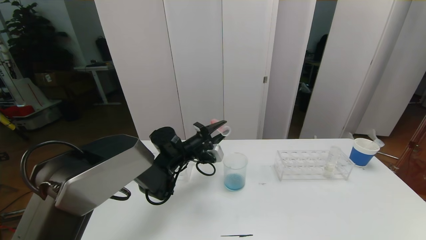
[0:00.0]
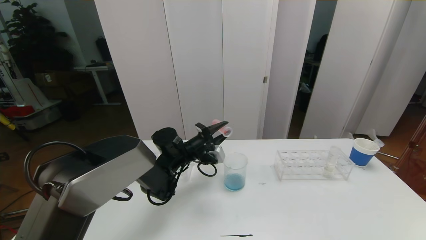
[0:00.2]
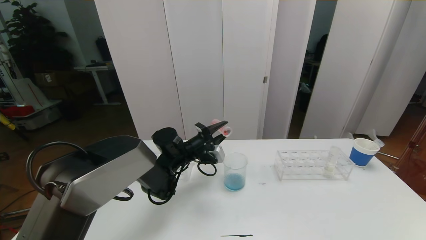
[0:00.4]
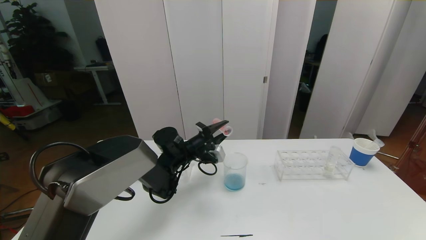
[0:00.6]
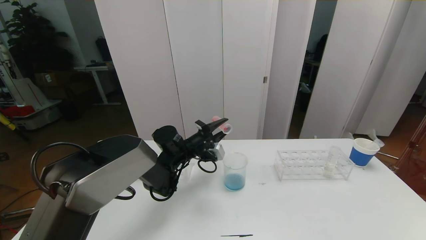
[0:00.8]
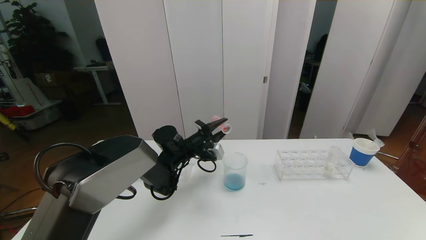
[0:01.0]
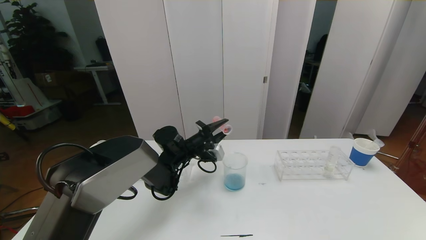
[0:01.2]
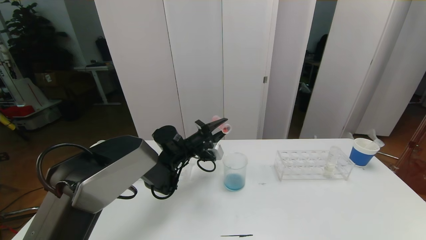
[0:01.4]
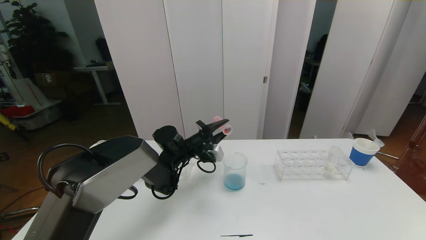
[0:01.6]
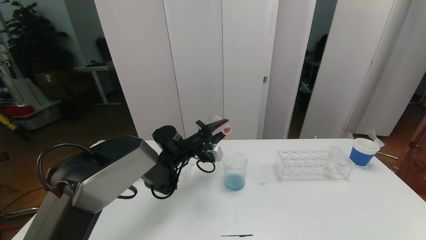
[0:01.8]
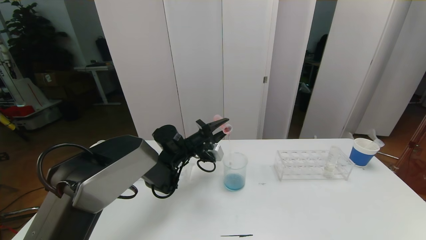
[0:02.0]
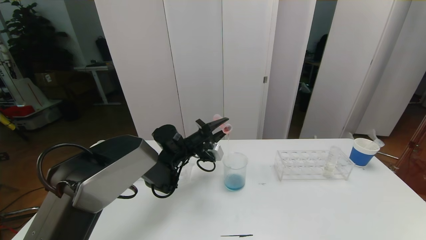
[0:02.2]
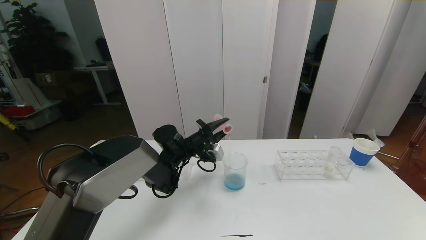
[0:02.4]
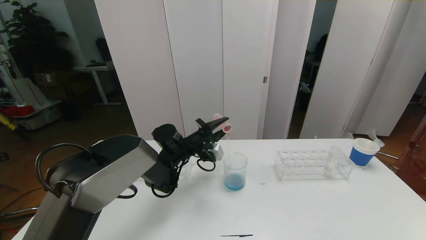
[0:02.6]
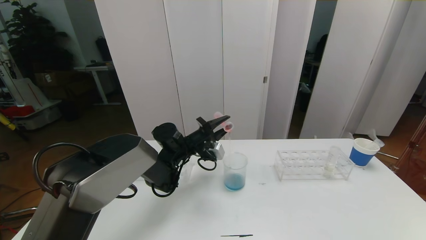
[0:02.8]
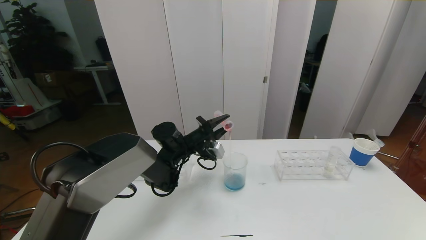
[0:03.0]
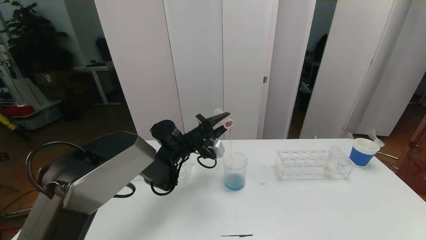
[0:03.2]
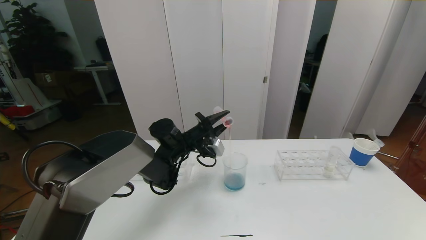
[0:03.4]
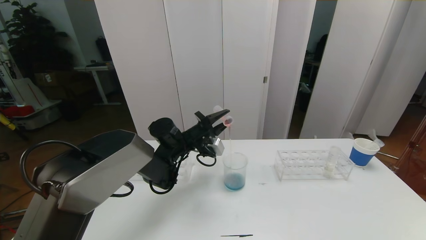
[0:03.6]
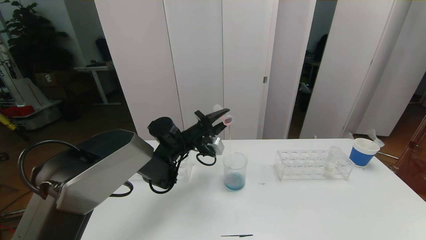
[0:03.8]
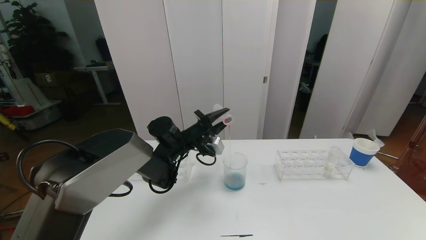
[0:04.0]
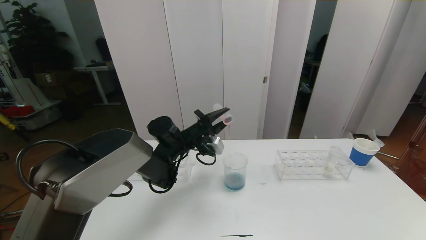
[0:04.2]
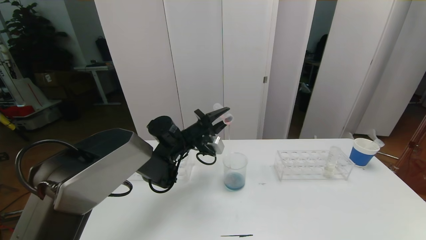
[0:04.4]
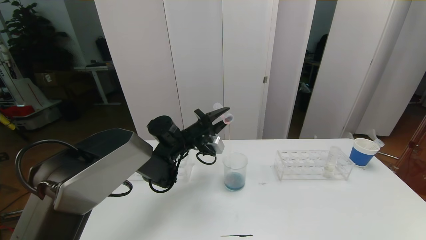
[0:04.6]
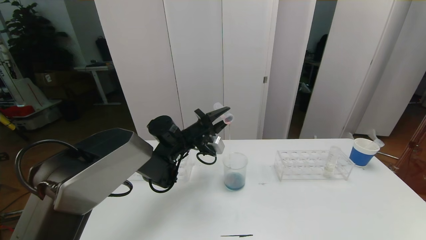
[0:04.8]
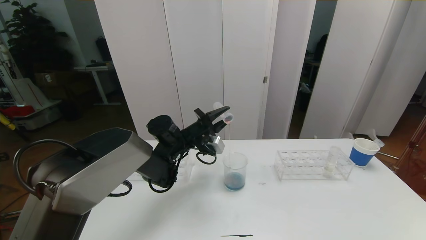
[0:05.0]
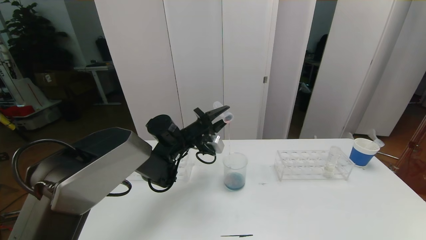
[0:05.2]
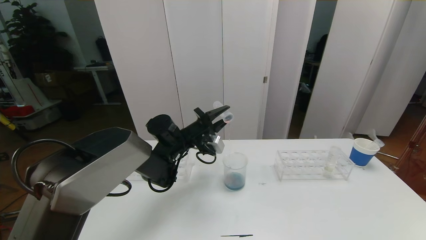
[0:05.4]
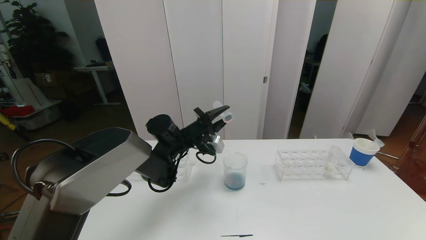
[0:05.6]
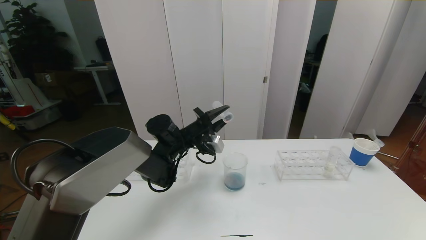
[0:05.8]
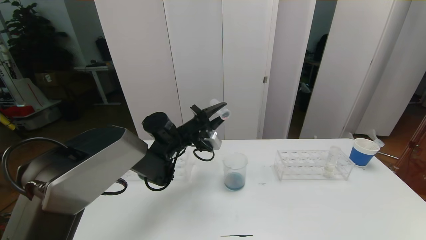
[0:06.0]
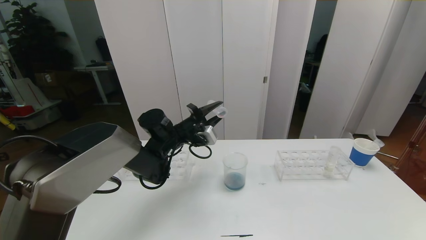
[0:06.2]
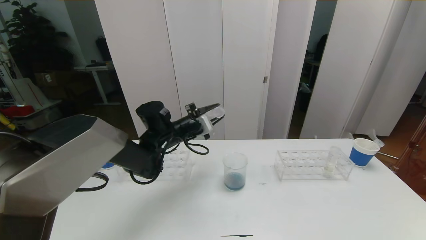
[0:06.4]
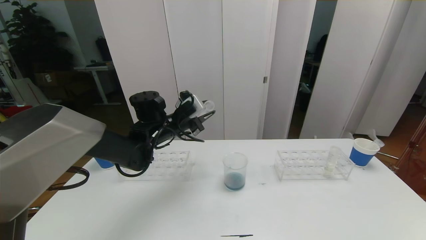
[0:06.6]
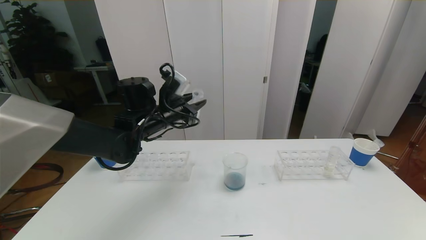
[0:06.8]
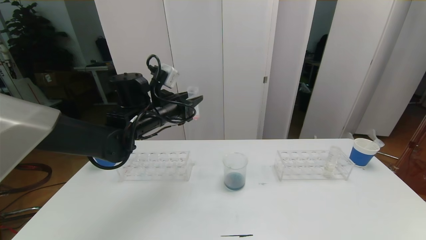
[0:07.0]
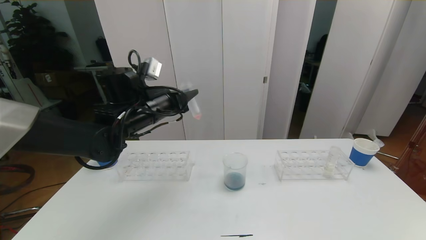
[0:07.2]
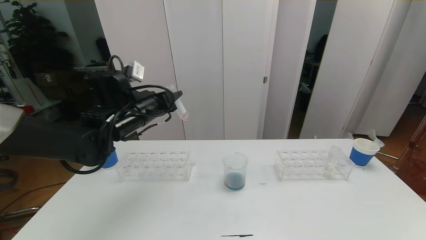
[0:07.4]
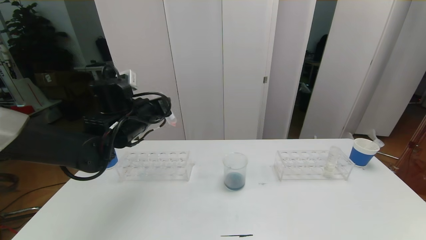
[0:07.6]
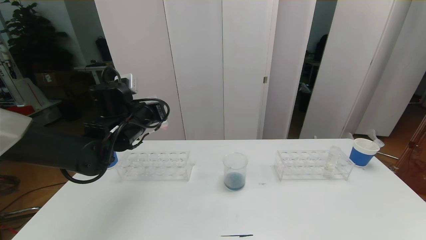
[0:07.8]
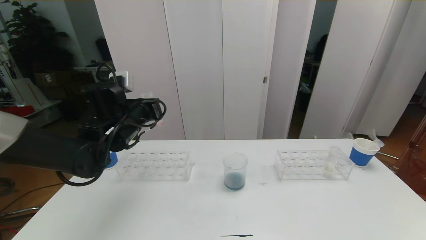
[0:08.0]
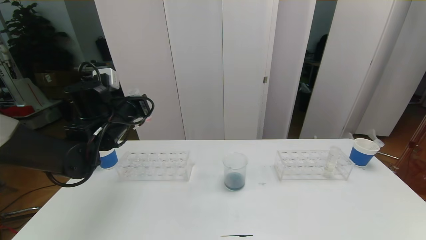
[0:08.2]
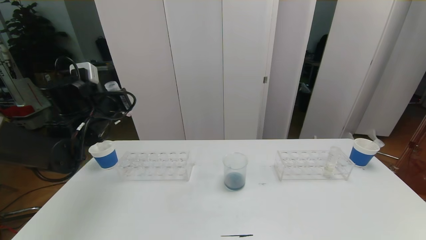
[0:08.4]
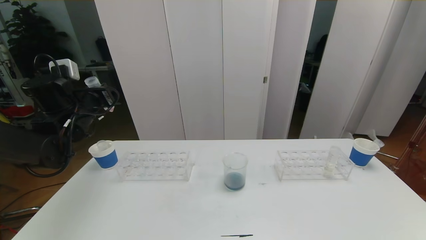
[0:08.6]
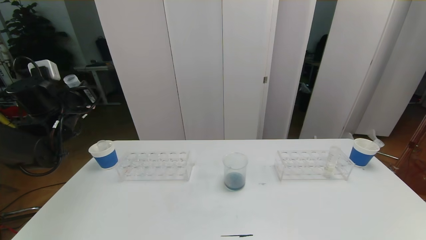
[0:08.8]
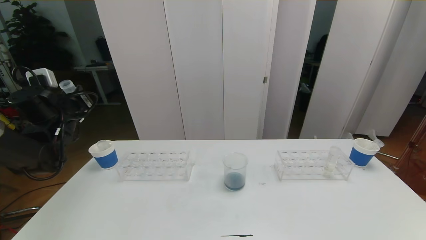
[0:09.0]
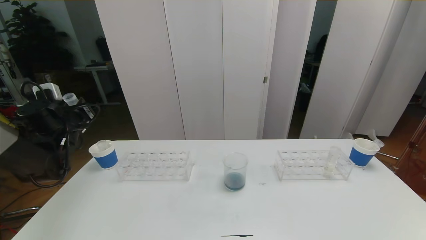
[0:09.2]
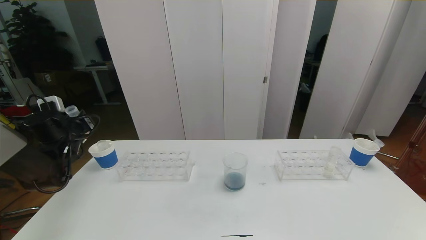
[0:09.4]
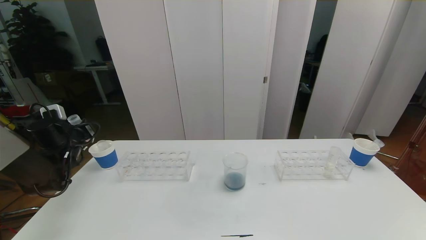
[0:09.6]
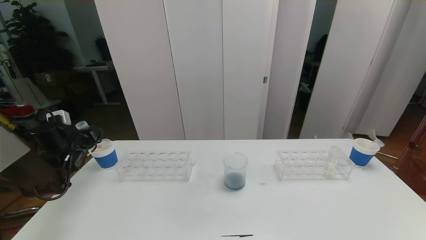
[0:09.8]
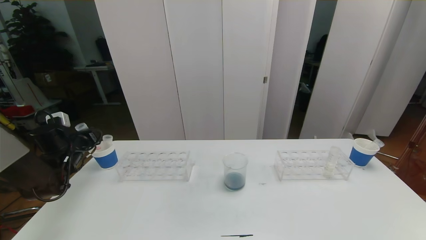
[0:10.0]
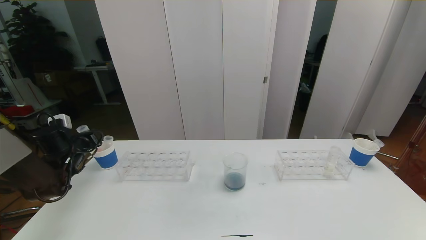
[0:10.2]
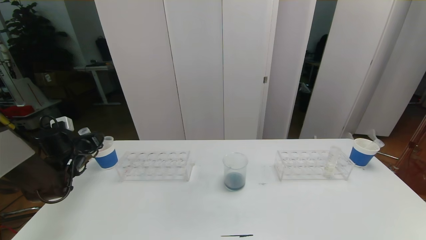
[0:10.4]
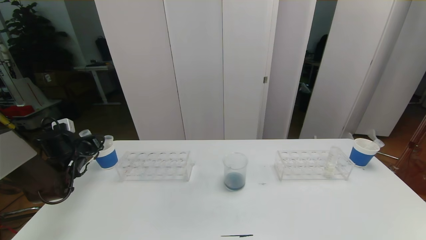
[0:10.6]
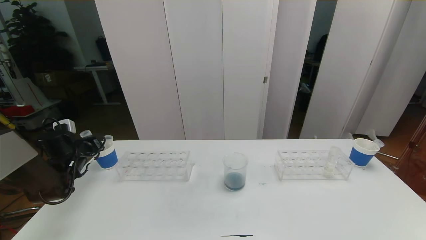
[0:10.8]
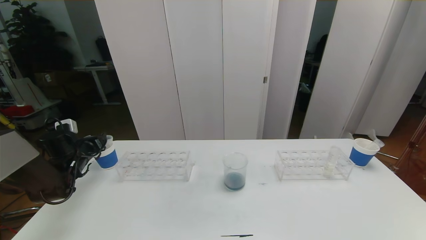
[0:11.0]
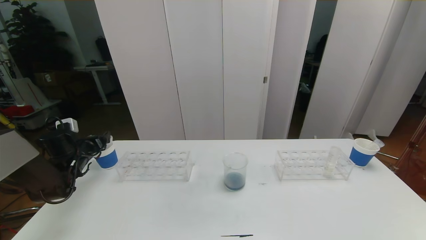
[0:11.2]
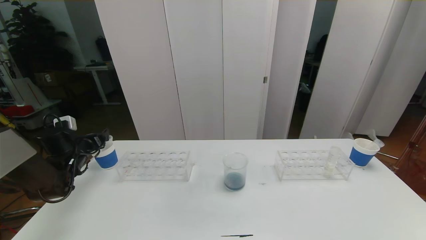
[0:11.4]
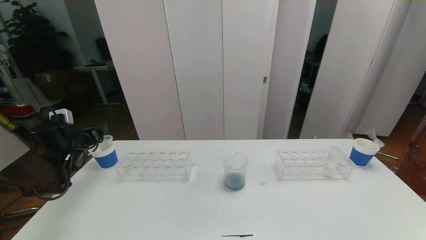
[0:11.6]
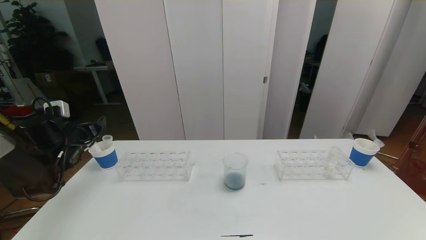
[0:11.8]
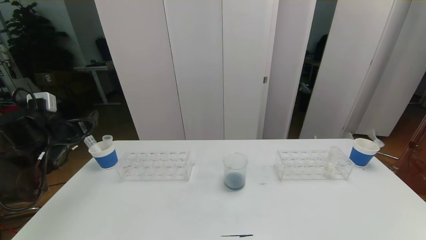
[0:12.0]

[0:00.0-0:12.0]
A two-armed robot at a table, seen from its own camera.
Task of the whole recording: pick up the test tube with red pigment the test tube with blue pigment and the test tube with white pigment by grippers and pour them into the beaker.
0:00.0 to 0:01.6: The grippers stay close to where they were, moving slightly.
0:01.6 to 0:03.0: The two grippers keep their place.
0:03.0 to 0:04.4: The grippers move only a little.
0:04.4 to 0:06.0: The two grippers keep their place.
0:06.0 to 0:07.6: The left gripper shifts approximately 10 cm to the left, upward and backward.
0:07.6 to 0:09.0: The left gripper shifts roughly 20 cm to the left.
0:09.0 to 0:10.4: The left gripper moves downward, roughly 10 cm.
0:10.4 to 0:12.0: The left gripper moves upward and backward, approximately 10 cm, and opens its fingers.

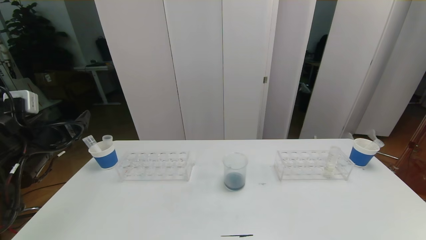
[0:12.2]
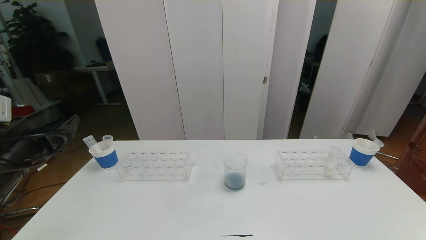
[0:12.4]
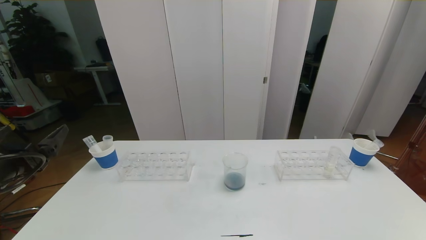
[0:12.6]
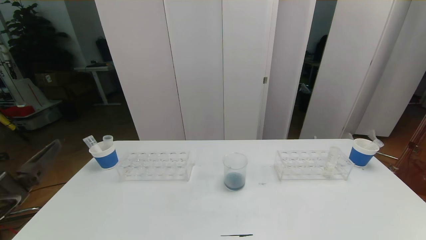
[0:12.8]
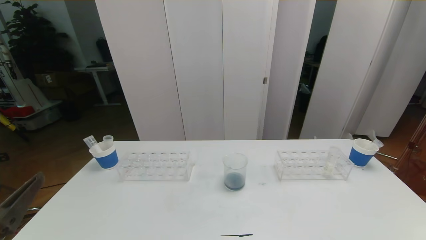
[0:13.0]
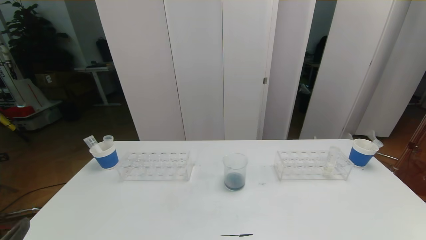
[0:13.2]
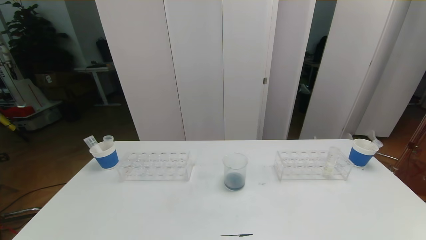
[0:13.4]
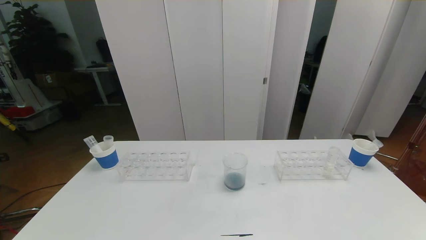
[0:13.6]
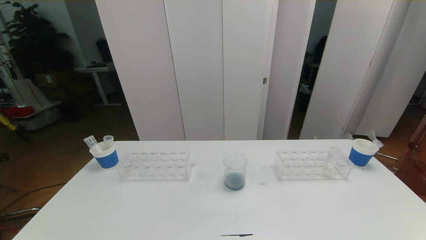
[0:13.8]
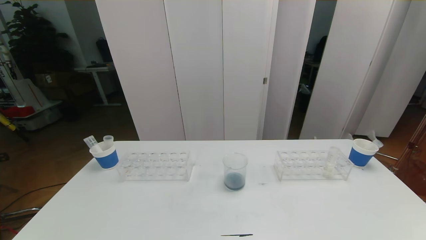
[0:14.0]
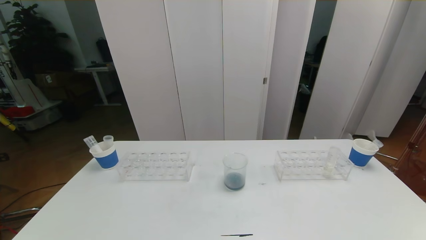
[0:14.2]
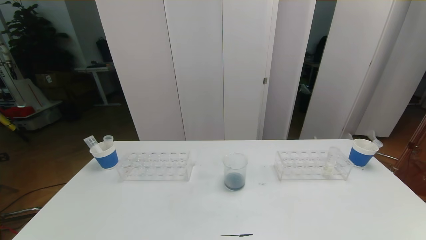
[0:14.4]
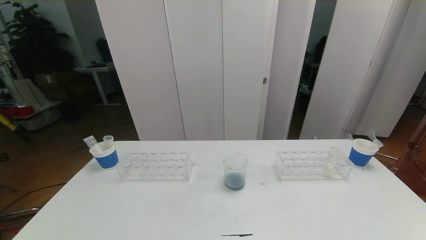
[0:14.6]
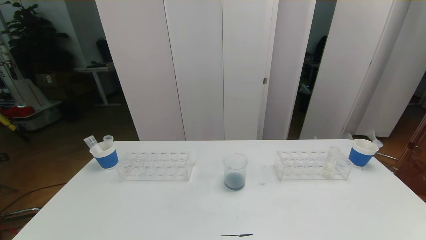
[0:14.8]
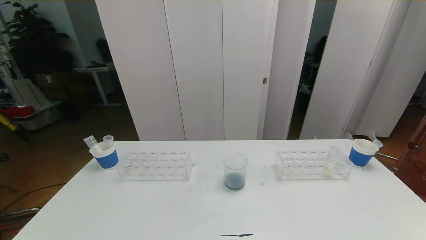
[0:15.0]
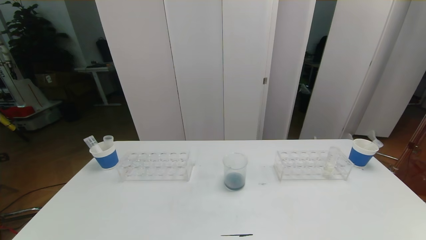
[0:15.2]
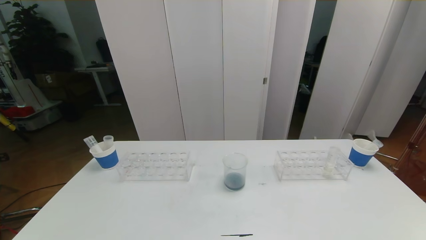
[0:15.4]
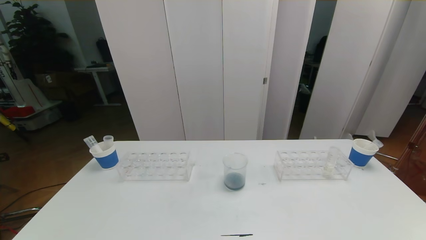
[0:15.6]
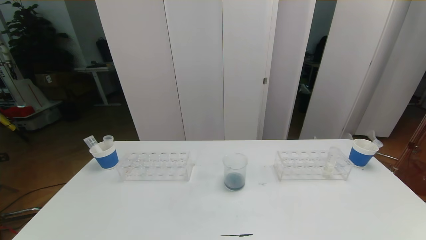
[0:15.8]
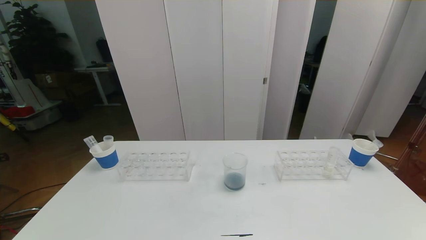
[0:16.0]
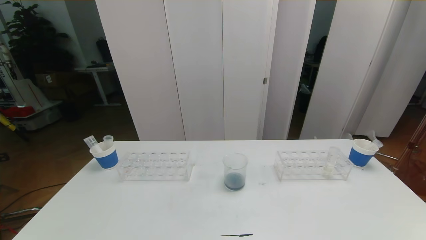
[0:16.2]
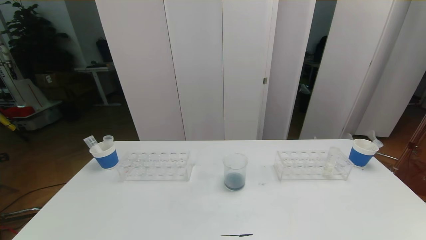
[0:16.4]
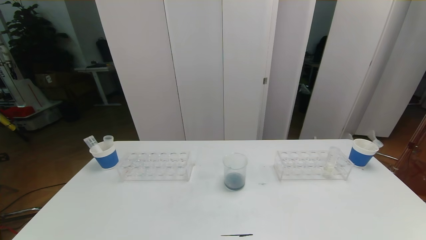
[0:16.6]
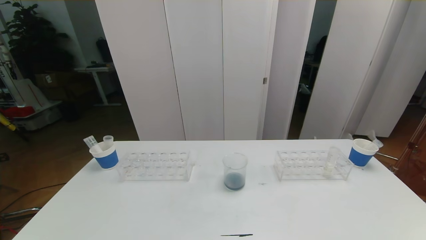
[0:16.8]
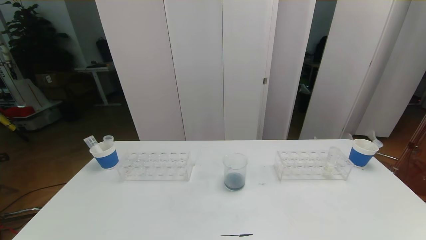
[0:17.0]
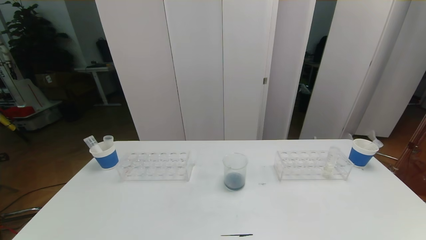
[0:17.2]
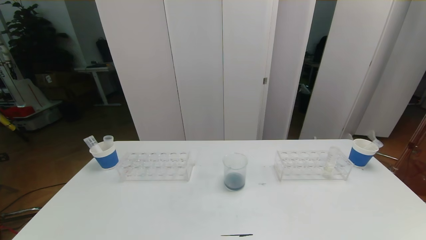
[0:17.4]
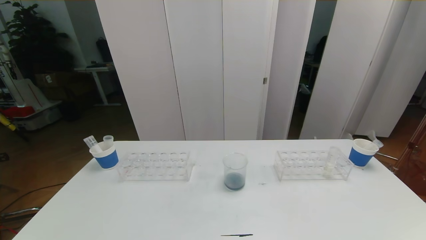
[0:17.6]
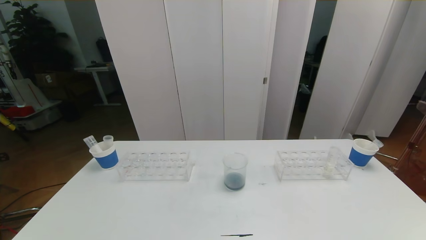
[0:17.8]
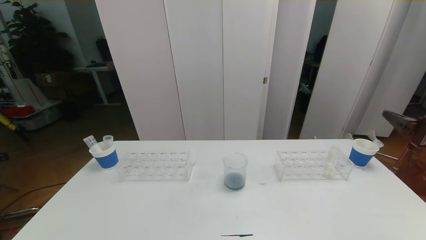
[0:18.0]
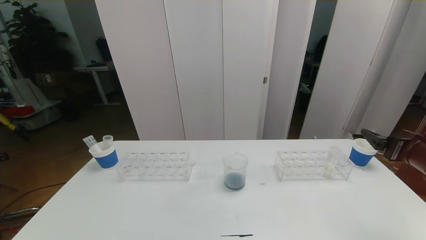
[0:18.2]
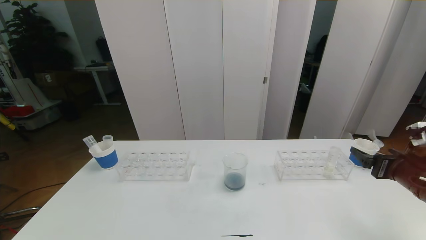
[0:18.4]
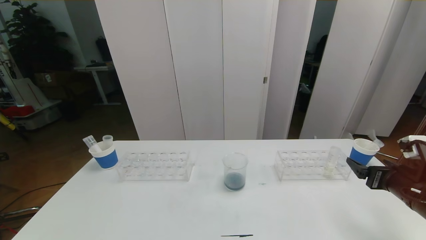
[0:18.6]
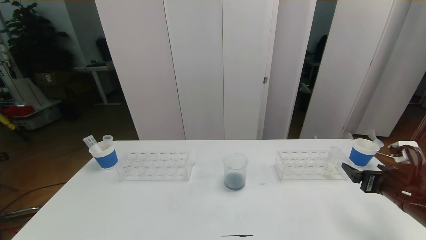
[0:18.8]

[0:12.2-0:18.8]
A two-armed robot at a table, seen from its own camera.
Task of the whole recording: pick up the test tube with red pigment the test tube with blue pigment and the test tube with white pigment by grippers and pour them into the beaker.
Step, 0:12.2 to 0:15.6: Pour the orange reagent into the graduated cylinder and place the test tube into the paper cup.
0:12.2 to 0:13.8: The left gripper moves backward, some 30 cm.
0:17.2 to 0:18.8: The right gripper shifts some 30 cm forward and downward.
